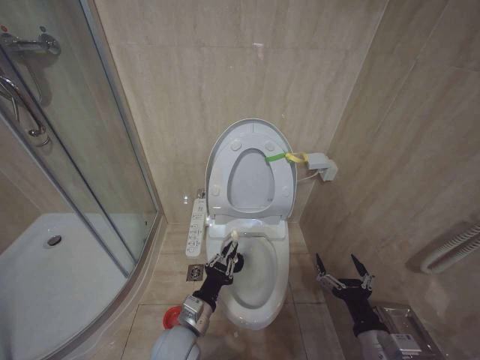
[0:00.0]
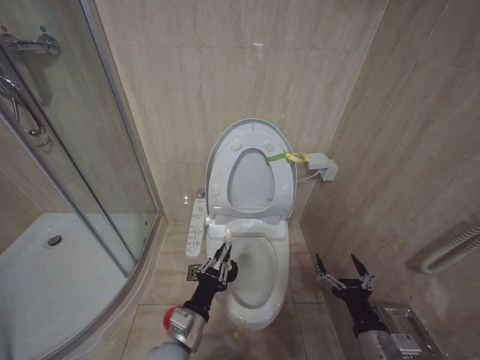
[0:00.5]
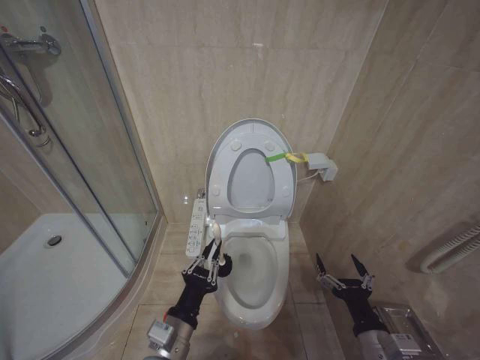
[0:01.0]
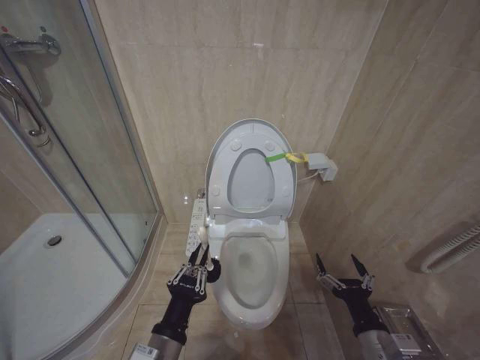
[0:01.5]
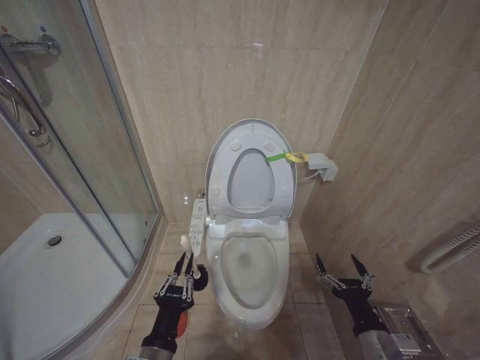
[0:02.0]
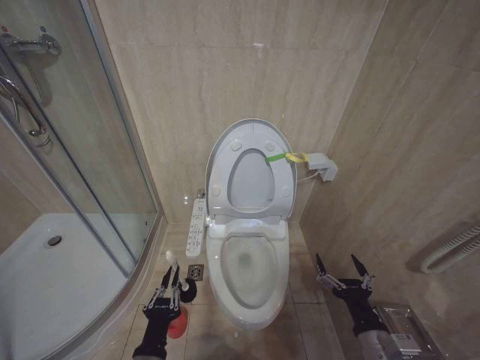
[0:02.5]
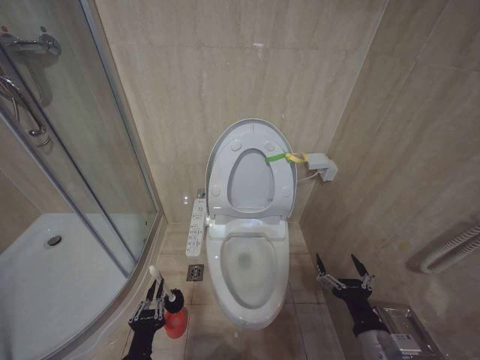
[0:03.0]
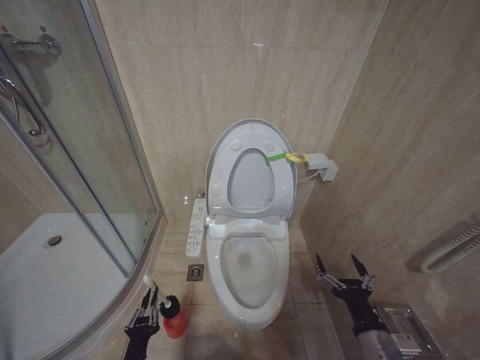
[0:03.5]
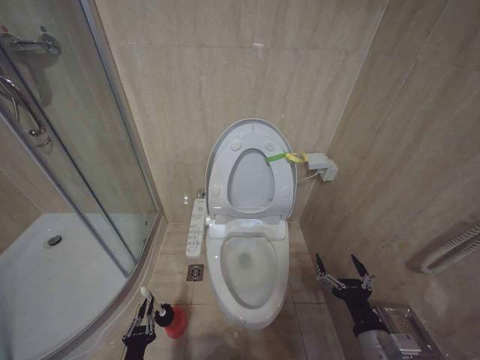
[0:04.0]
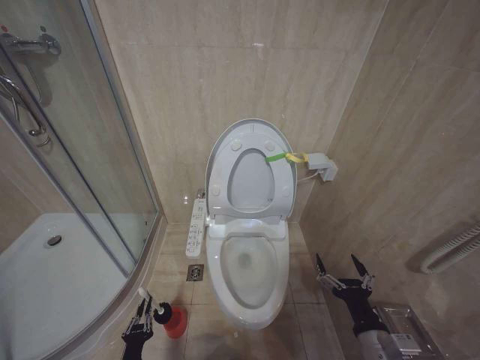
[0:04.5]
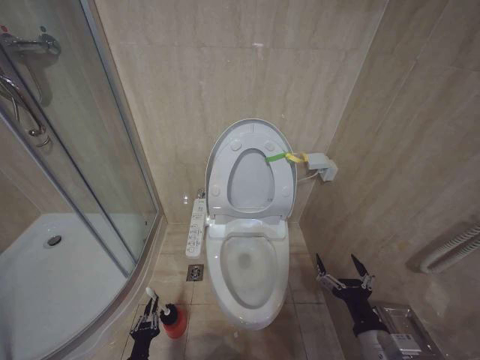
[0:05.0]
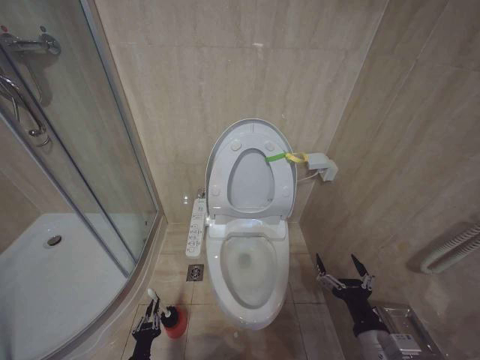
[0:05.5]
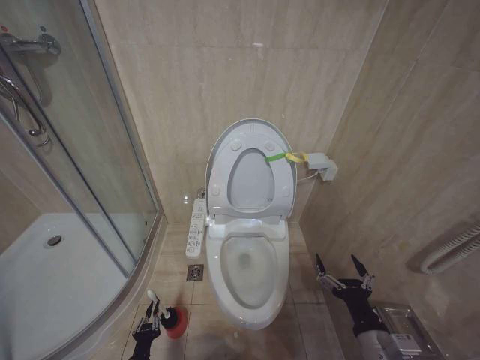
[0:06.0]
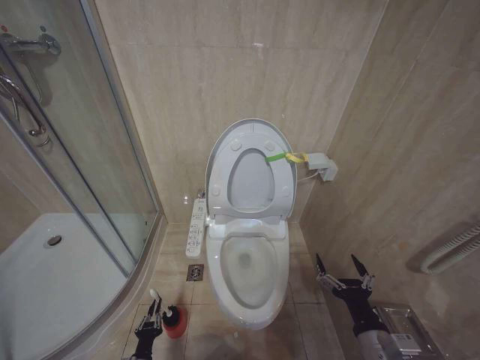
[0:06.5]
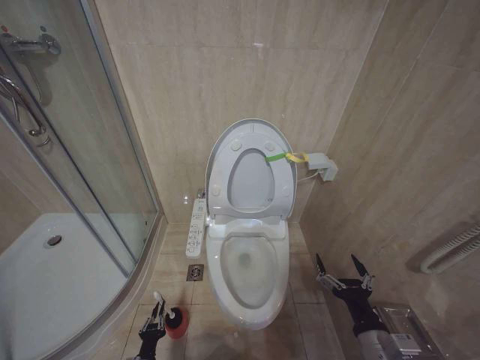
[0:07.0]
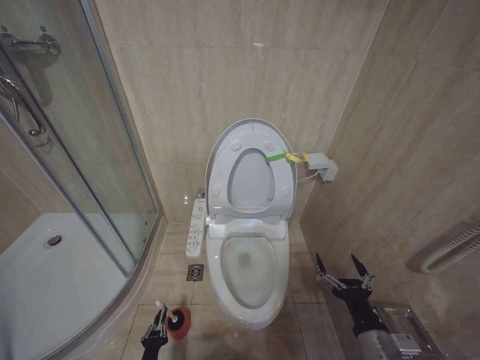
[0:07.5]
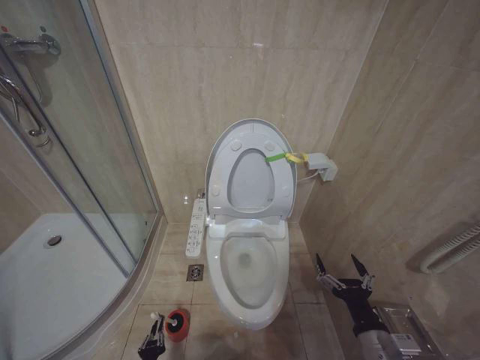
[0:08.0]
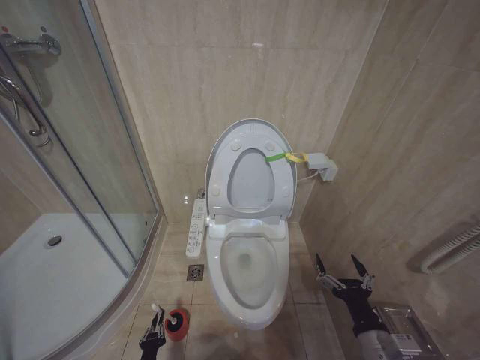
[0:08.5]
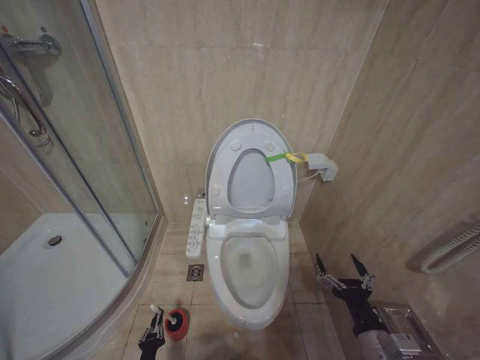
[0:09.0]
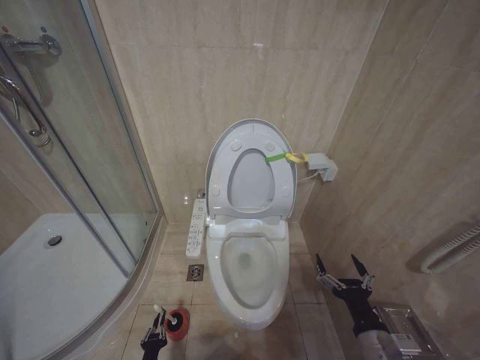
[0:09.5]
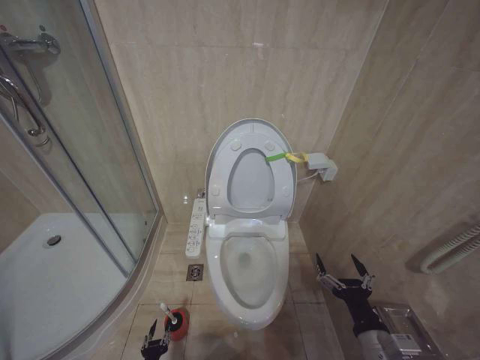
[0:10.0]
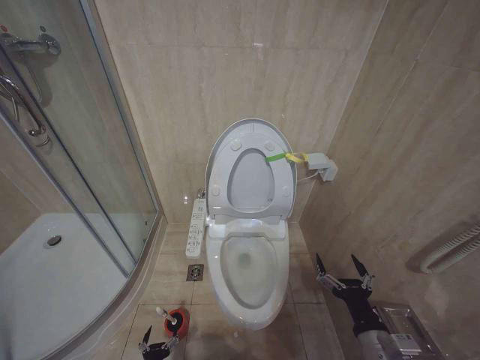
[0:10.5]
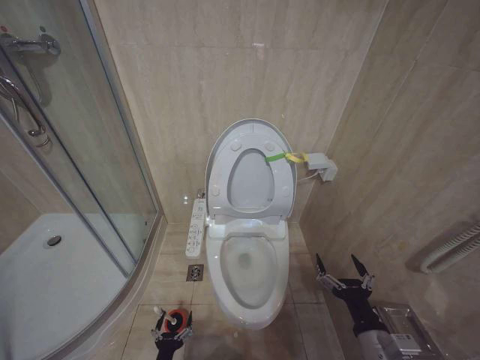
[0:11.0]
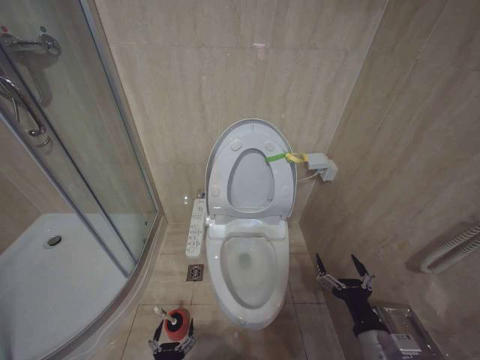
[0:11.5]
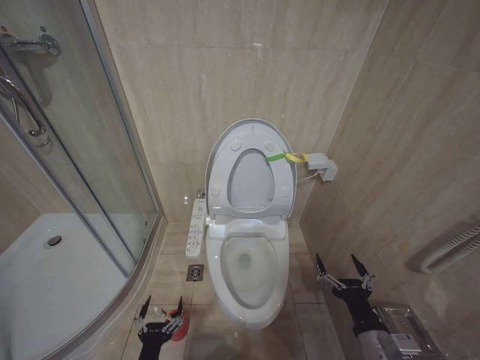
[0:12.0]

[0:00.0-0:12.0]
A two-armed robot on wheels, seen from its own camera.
Task of the whole recording: Open the toilet lid, clean the toilet bowl with a toilet brush, close the toilet lid, and flush.
0:00.0 to 0:02.0: The left gripper moves backward and upward, roughly 10 cm.
0:02.0 to 0:04.0: The left gripper moves downward and to the left, approximately 25 cm.
0:04.0 to 0:06.0: The left gripper travels downward by approximately 10 cm.
0:06.0 to 0:08.0: The left gripper changes place by approximately 5 cm.
0:10.0 to 0:12.0: The left gripper travels upward by some 20 cm, and opens up.

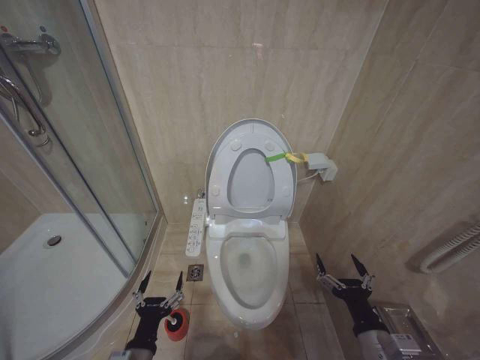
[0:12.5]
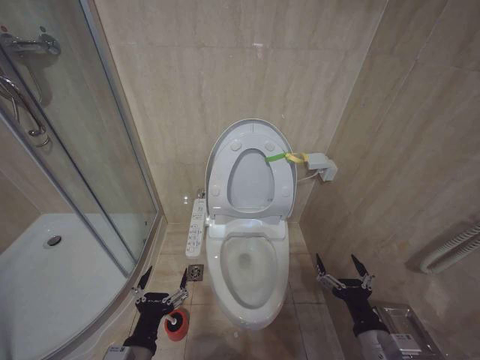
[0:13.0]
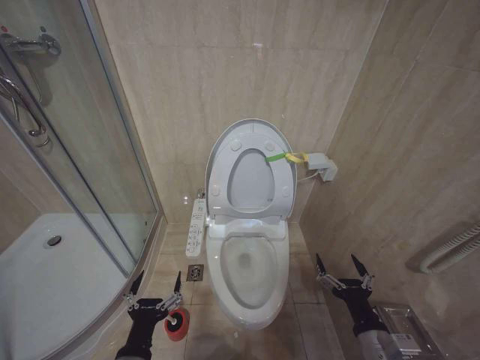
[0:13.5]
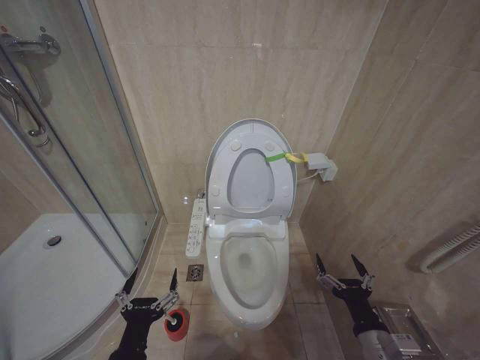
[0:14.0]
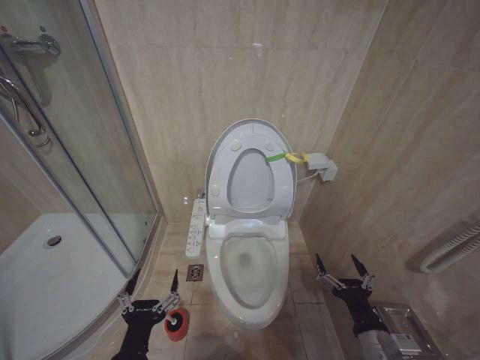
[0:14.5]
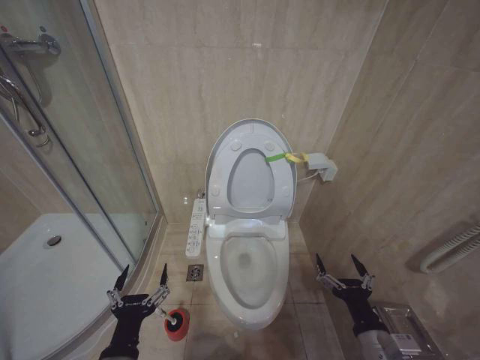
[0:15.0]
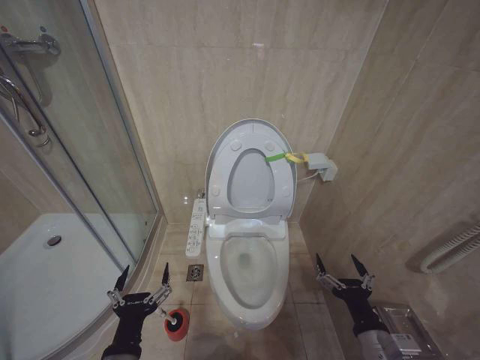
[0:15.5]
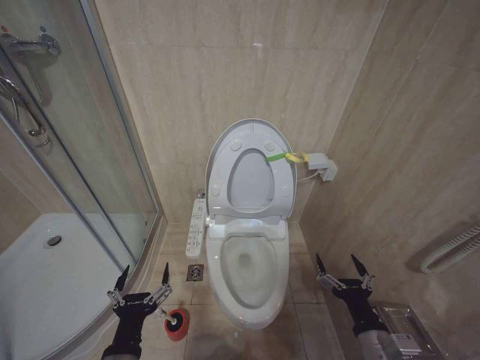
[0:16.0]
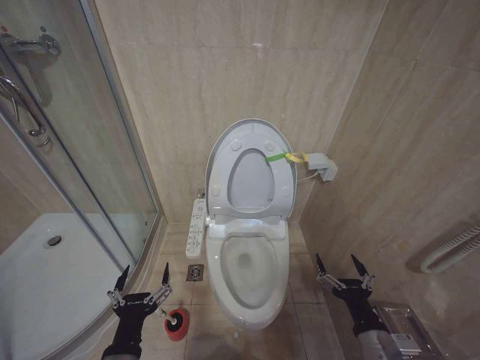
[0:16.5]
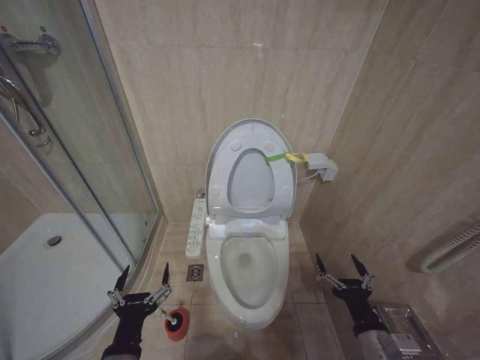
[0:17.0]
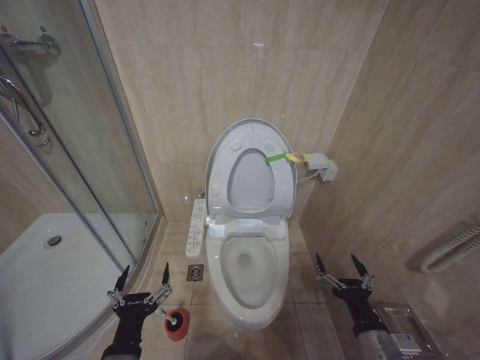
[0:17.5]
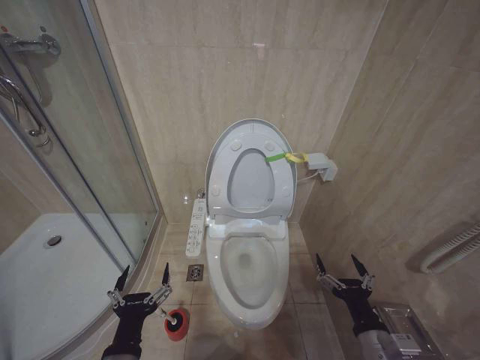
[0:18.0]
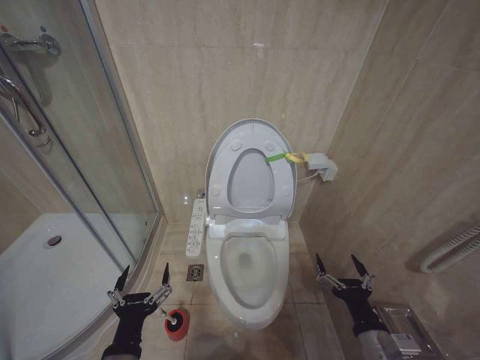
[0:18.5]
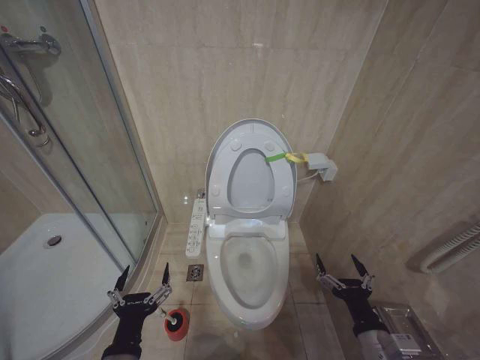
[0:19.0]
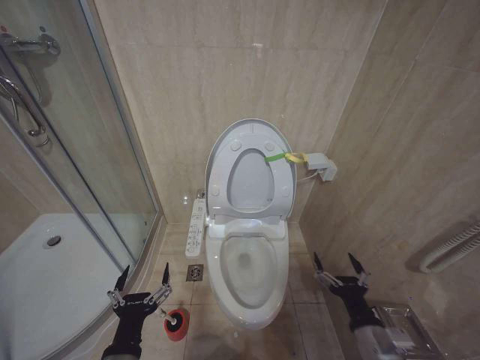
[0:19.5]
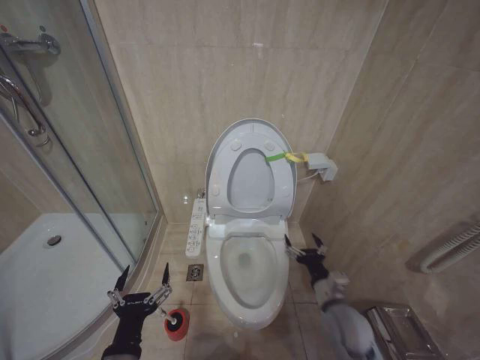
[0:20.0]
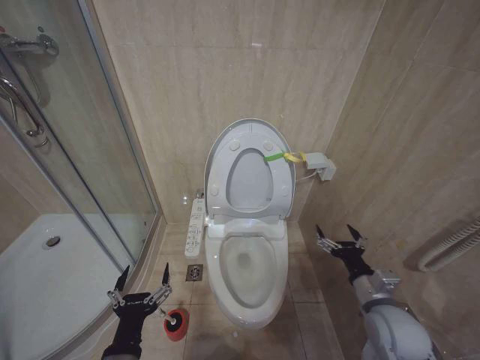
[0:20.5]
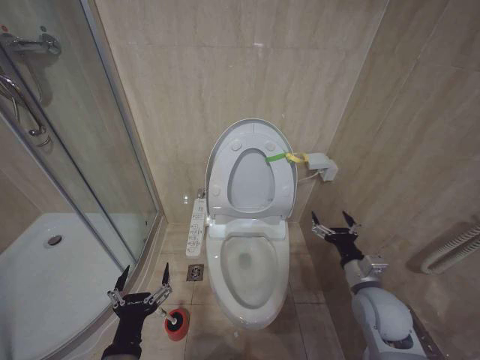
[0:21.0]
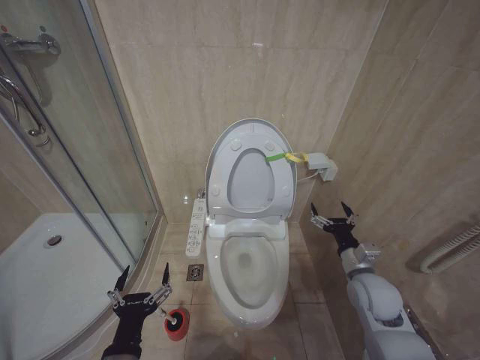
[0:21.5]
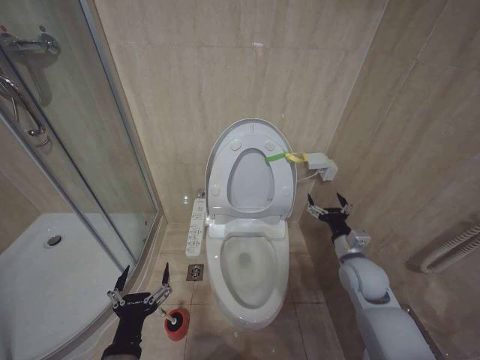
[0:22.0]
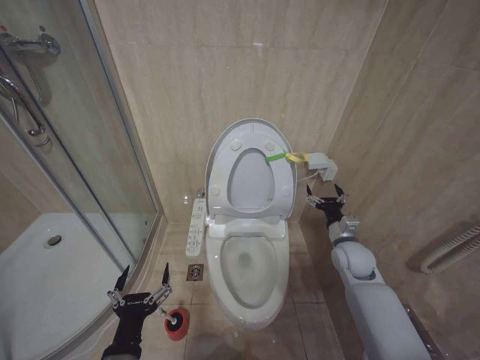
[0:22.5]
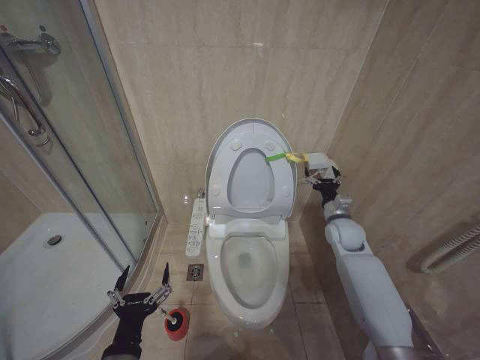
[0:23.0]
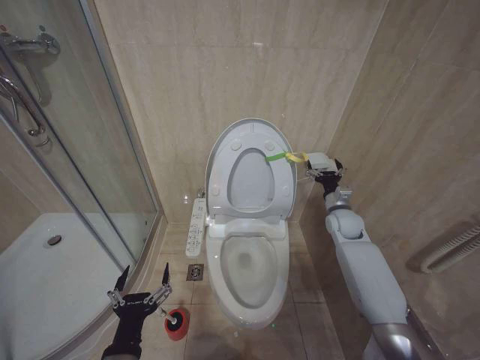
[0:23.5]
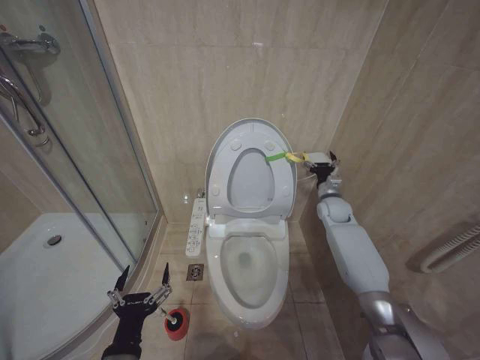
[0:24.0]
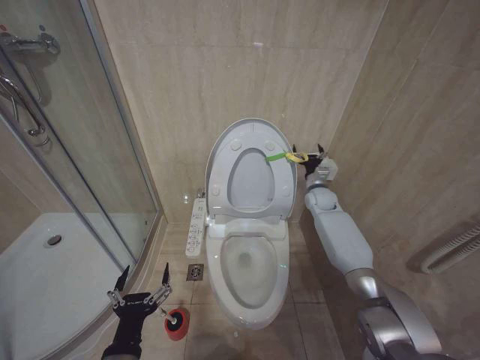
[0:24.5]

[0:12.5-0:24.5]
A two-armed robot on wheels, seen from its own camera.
Task of the whole recording: Open the toilet lid, clean the toilet bowl with a toilet brush, close the toilet lid, and flush.
0:12.5 to 0:14.5: The left gripper goes about 10 cm upward.
0:14.5 to 0:16.5: The grippers stay close to where they were, moving slightly.
0:16.5 to 0:18.5: The two grippers keep their place.
0:18.5 to 0:20.5: The right gripper travels forward by about 10 cm.
0:20.5 to 0:22.5: The right gripper is displaced forward by roughly 15 cm.
0:22.5 to 0:24.5: The right gripper goes approximately 20 cm forward.

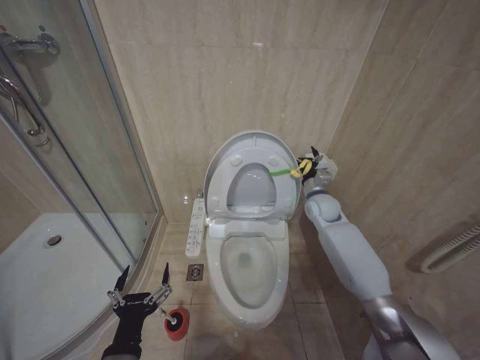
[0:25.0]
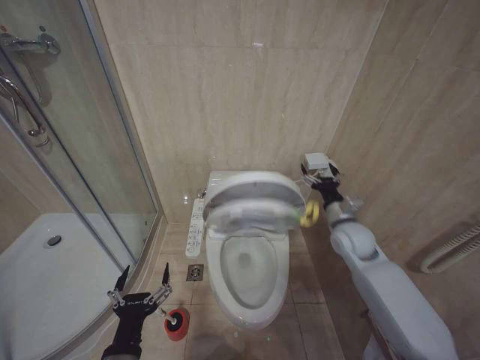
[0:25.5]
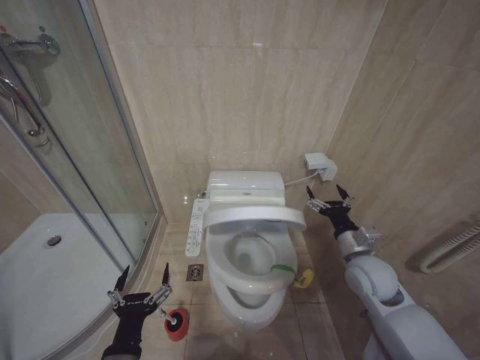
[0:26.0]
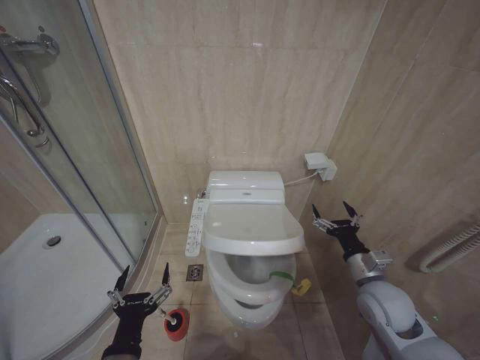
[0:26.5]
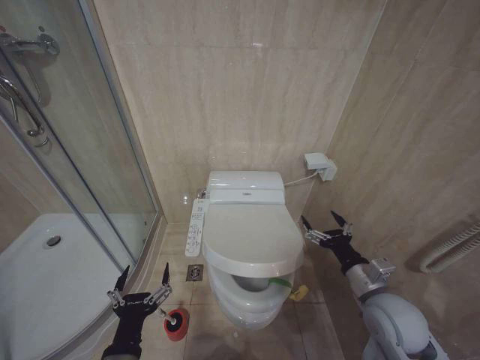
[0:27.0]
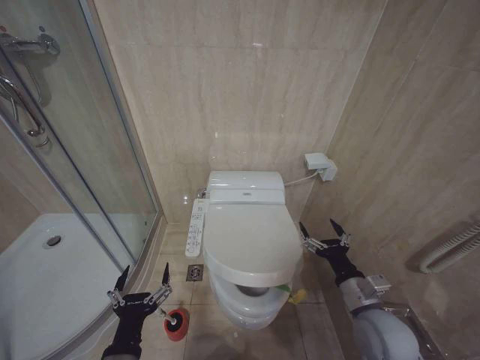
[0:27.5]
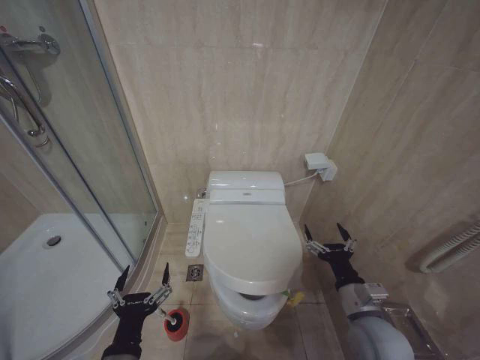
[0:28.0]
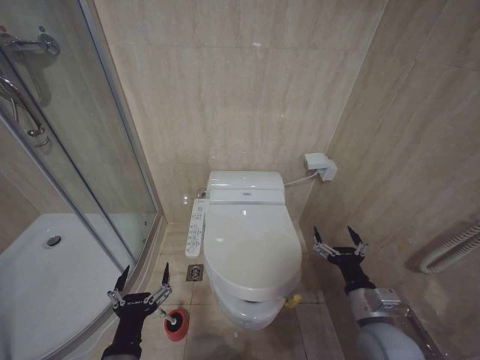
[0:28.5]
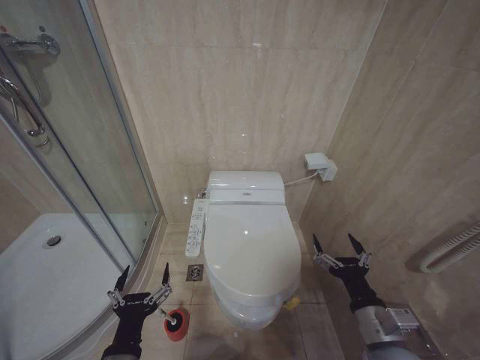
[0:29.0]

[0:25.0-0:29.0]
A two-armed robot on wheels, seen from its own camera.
Task of the whole recording: Open the toilet lid, clean the toilet bowl with a toilet brush, close the toilet lid, and flush.
0:25.0 to 0:27.0: The right gripper moves backward, roughly 30 cm.
0:27.0 to 0:29.0: The right gripper is displaced backward by some 10 cm.
